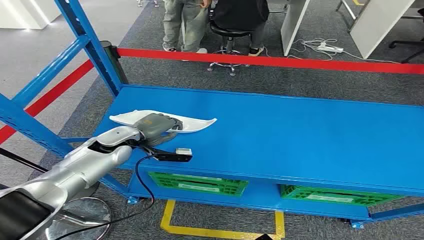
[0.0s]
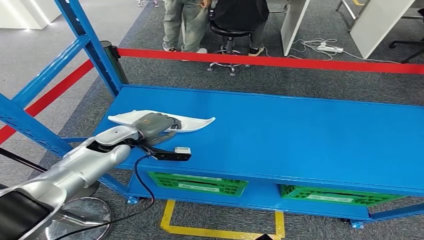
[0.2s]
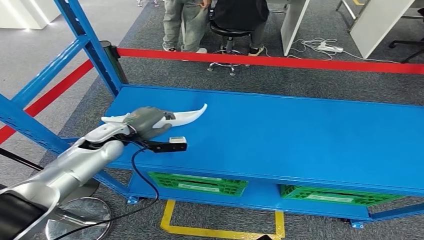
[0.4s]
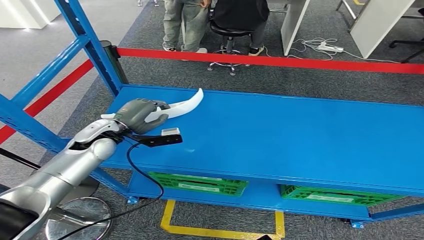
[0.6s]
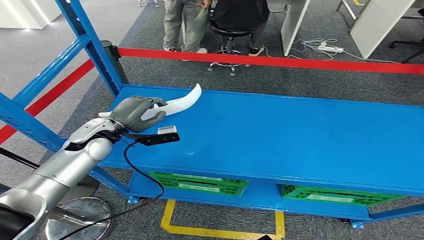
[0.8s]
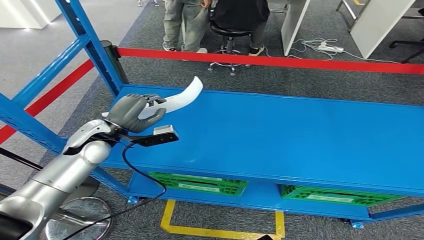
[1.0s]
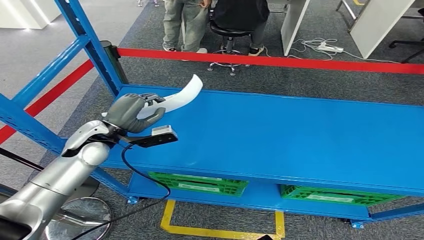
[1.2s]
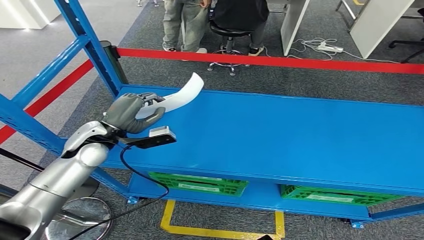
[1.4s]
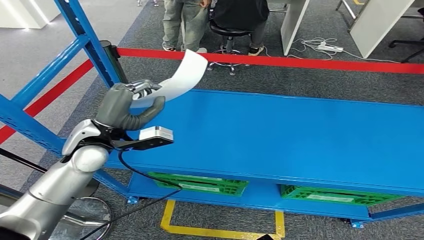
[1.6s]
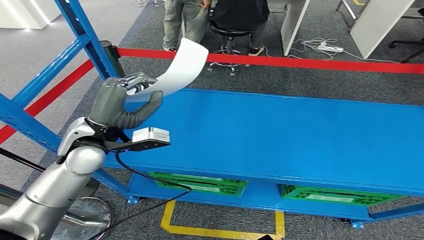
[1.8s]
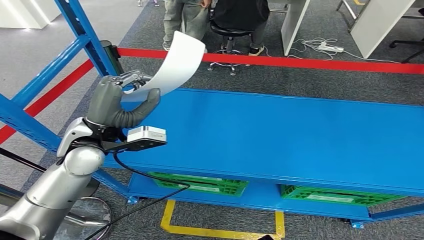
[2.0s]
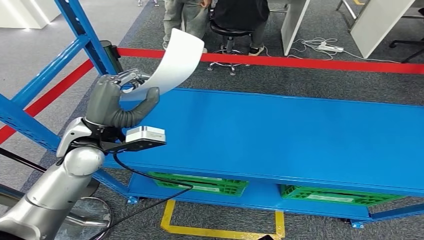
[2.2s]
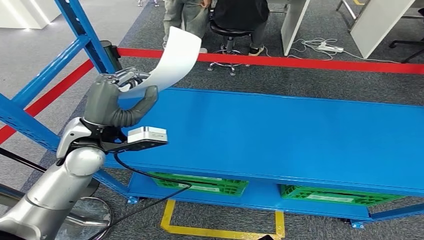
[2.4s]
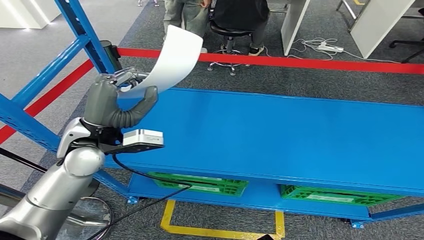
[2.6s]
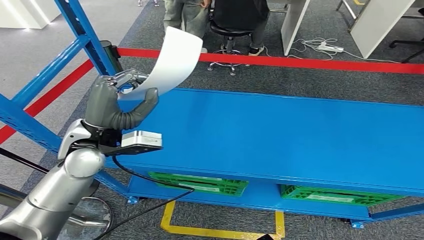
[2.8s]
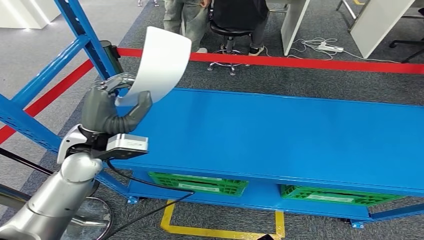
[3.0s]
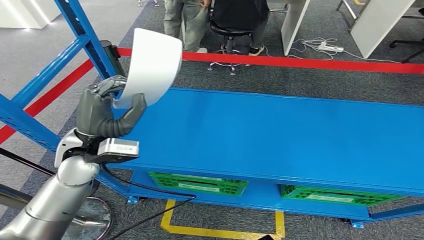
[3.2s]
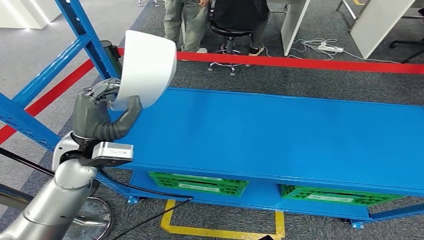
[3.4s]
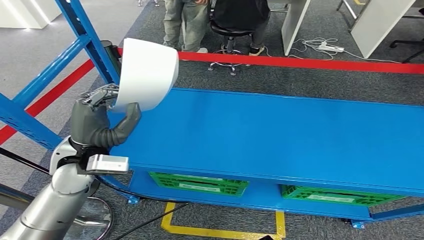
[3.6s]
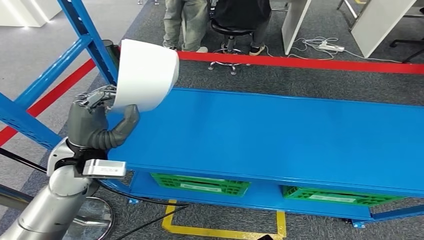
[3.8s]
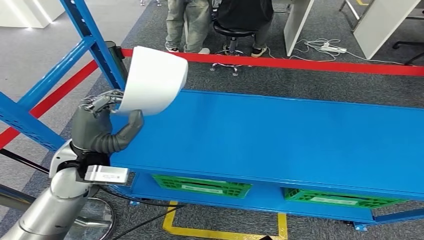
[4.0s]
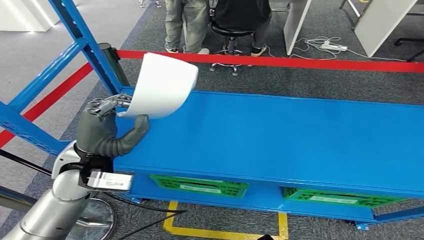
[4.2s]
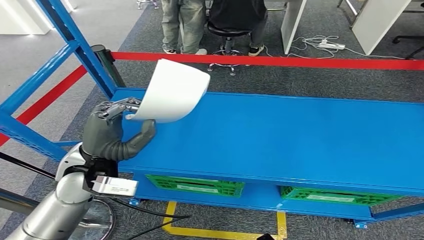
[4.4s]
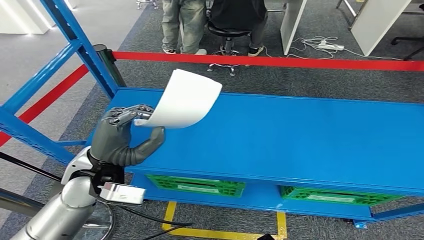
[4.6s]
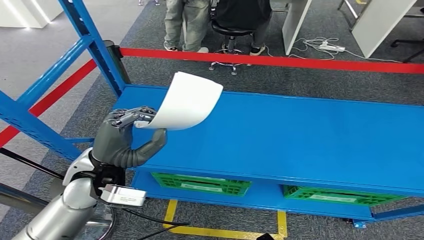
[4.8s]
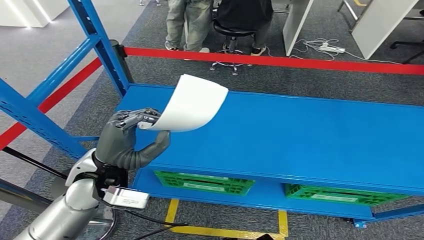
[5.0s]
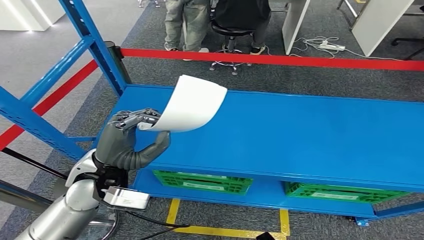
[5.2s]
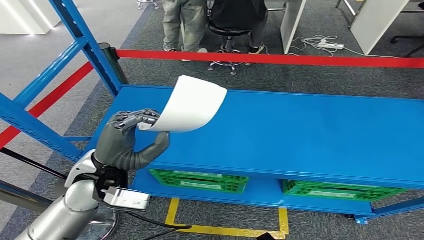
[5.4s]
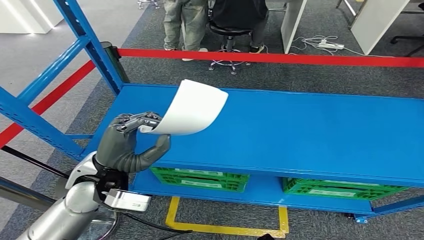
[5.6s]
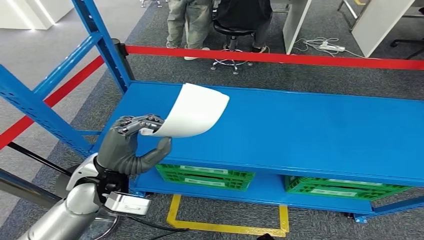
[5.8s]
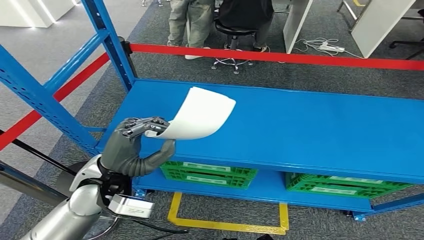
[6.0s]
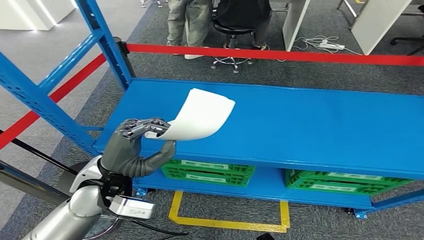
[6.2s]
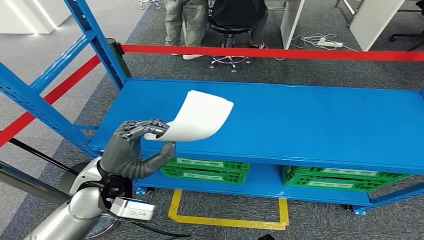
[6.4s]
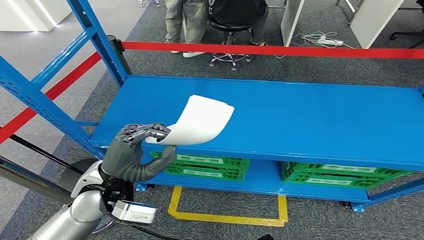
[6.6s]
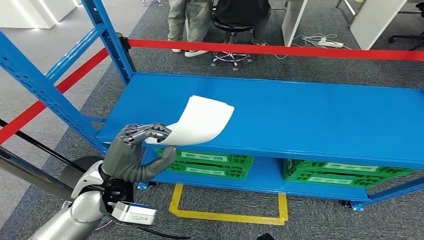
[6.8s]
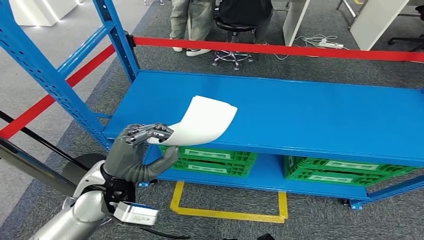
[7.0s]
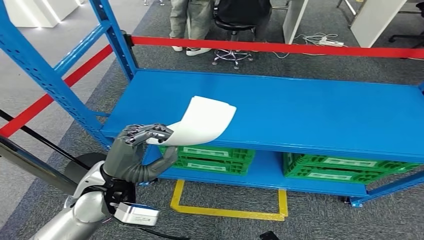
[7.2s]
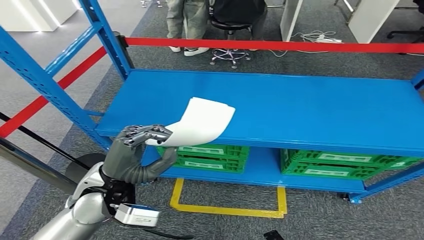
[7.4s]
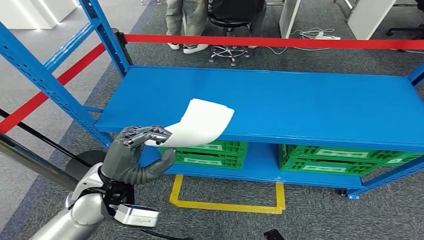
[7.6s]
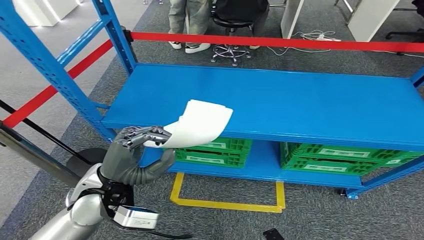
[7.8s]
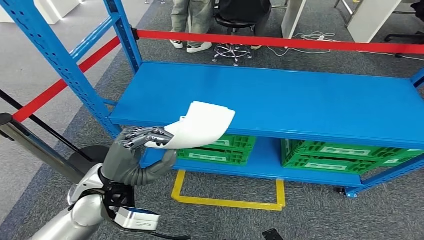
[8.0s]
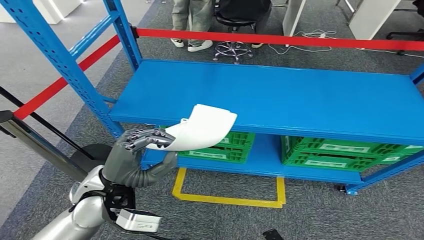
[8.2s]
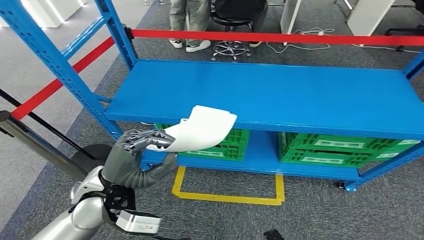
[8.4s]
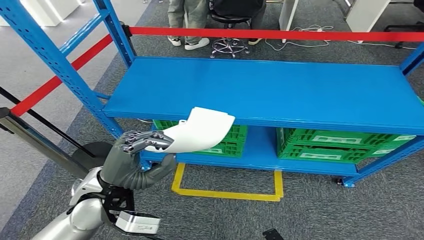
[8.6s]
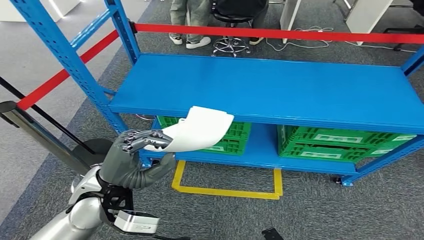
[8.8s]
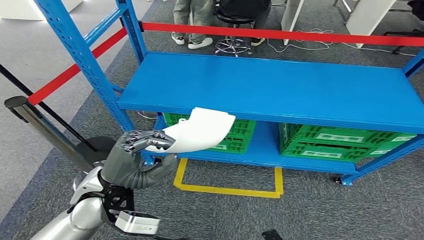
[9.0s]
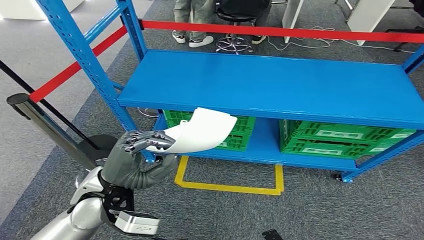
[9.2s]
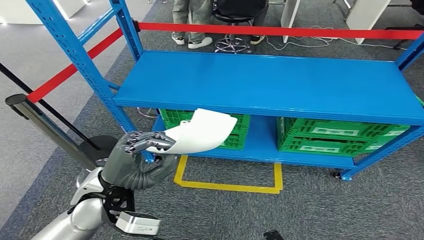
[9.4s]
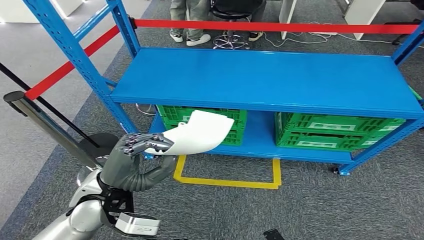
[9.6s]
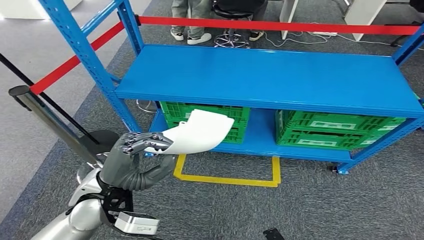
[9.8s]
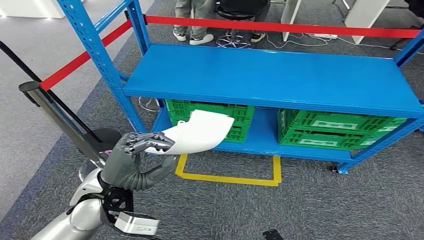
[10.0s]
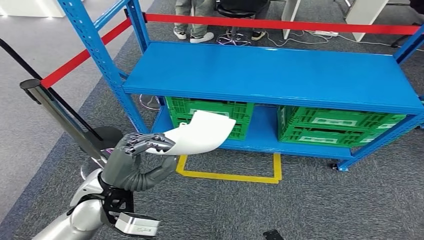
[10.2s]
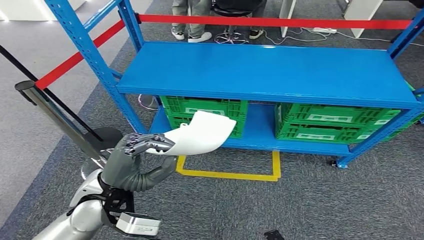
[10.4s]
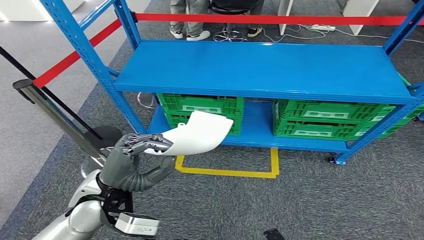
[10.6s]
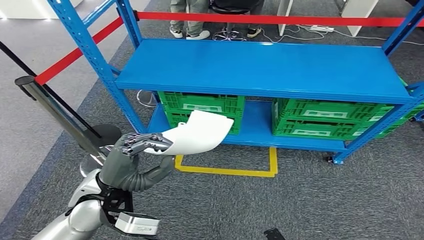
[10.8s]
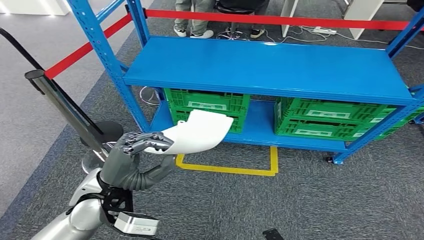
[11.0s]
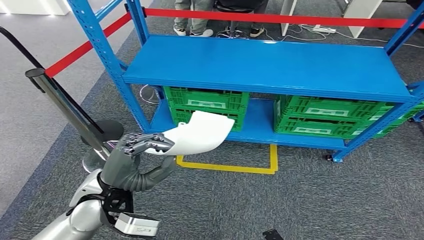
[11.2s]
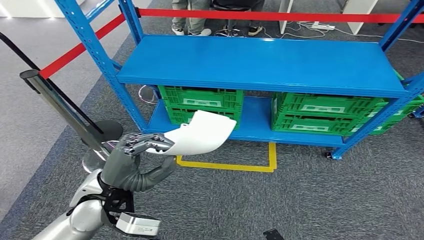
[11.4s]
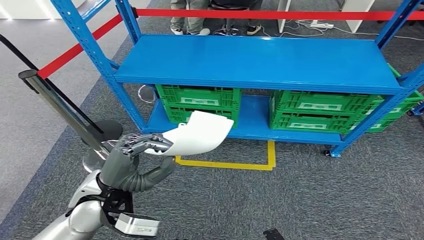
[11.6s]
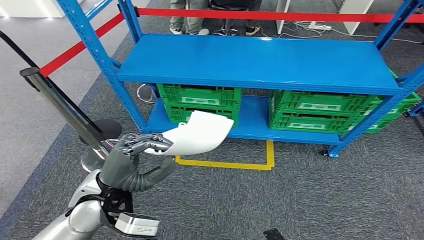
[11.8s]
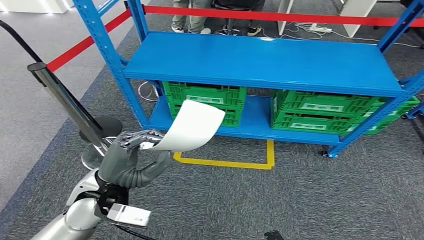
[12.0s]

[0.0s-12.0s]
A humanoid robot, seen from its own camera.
Step, 0.0s to 2.8s: Take small components from the rack.
1.6s to 3.0s: The hands stay close to where they were, moving slightly.

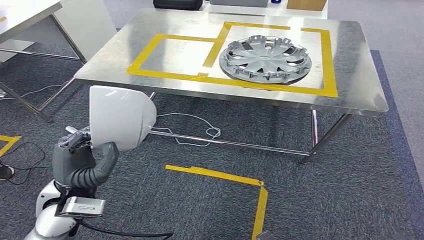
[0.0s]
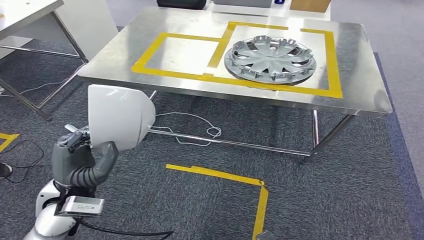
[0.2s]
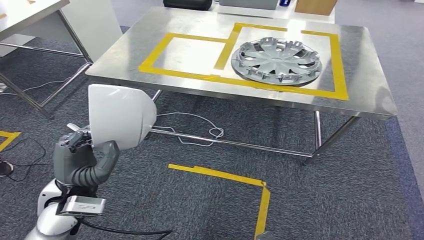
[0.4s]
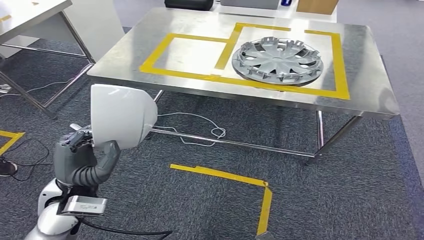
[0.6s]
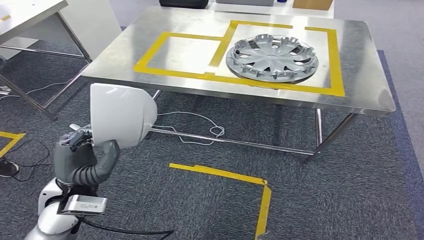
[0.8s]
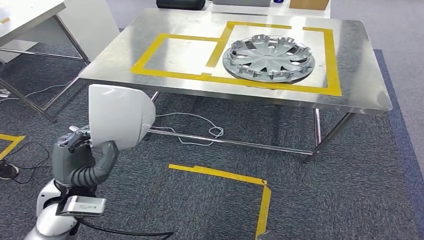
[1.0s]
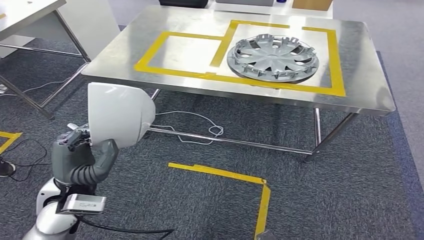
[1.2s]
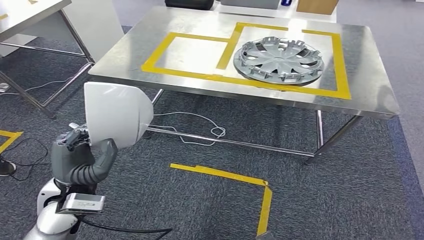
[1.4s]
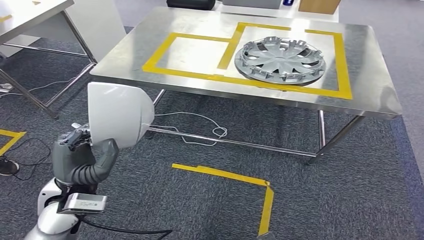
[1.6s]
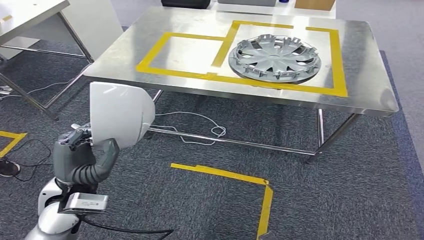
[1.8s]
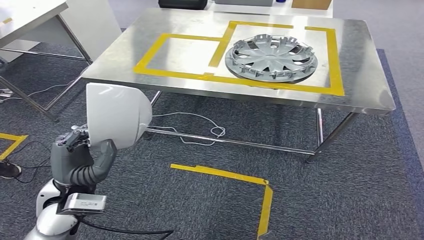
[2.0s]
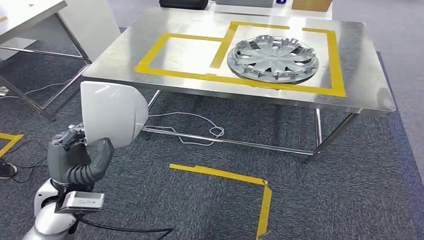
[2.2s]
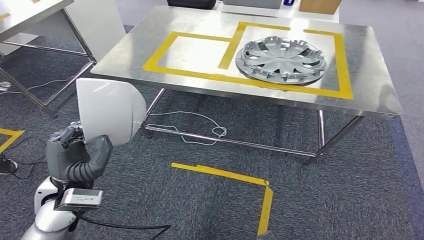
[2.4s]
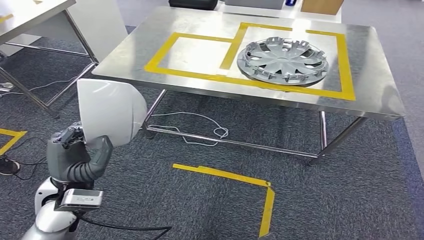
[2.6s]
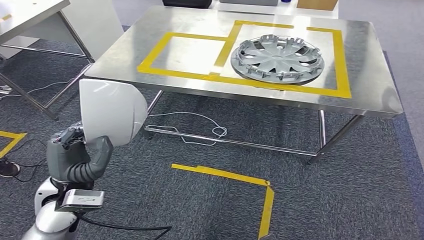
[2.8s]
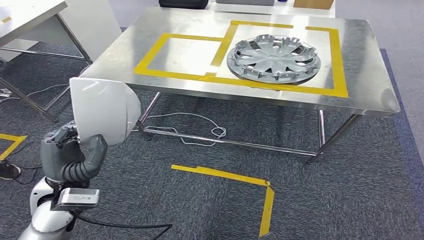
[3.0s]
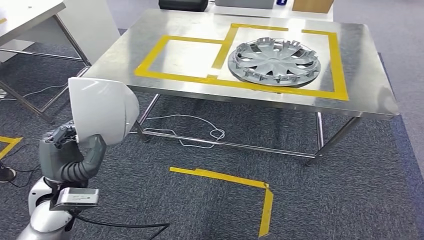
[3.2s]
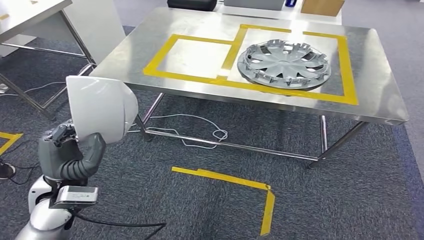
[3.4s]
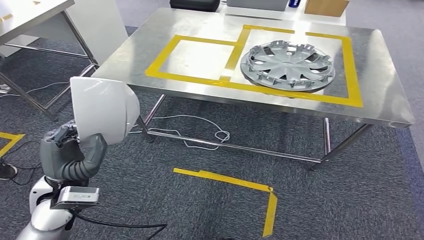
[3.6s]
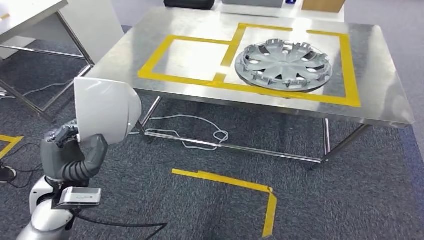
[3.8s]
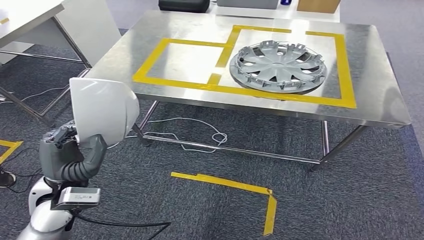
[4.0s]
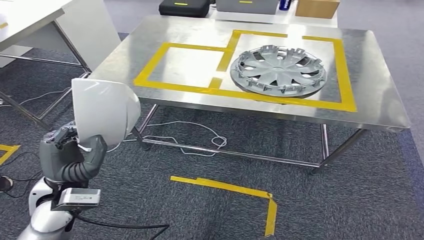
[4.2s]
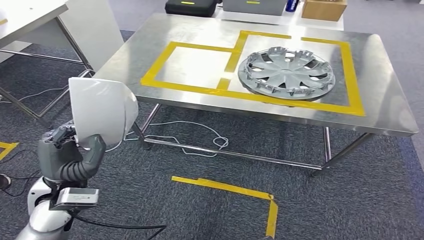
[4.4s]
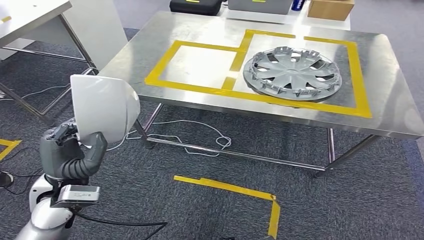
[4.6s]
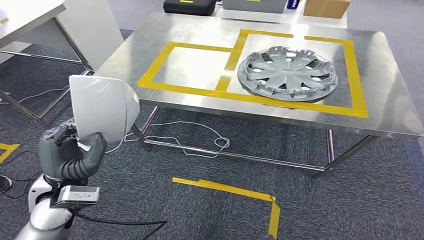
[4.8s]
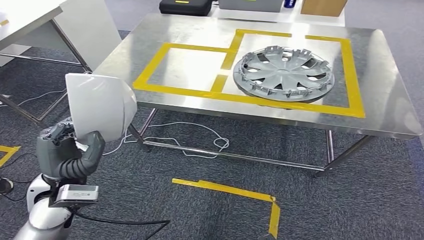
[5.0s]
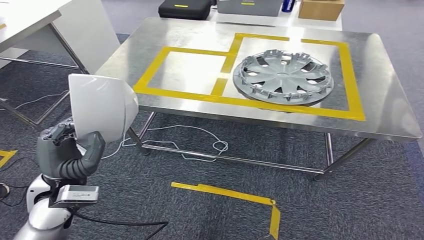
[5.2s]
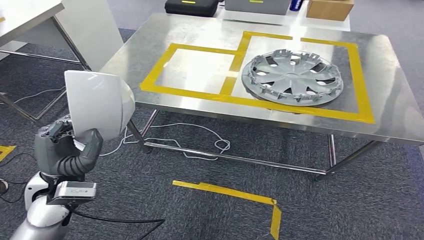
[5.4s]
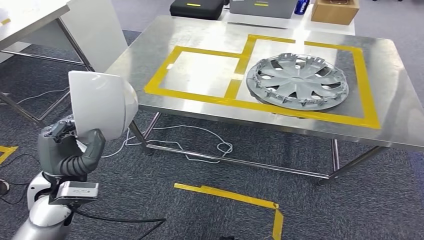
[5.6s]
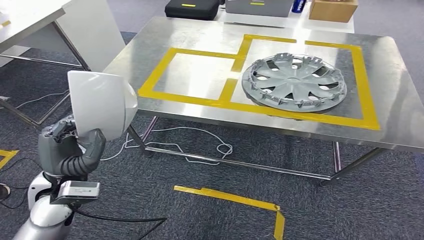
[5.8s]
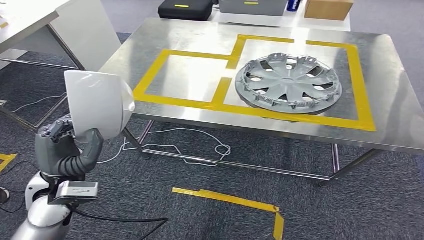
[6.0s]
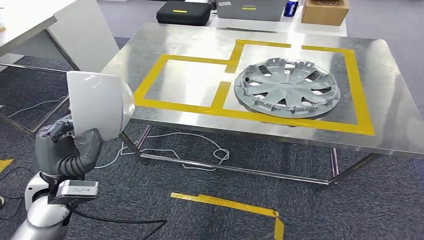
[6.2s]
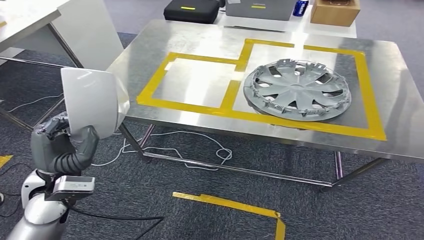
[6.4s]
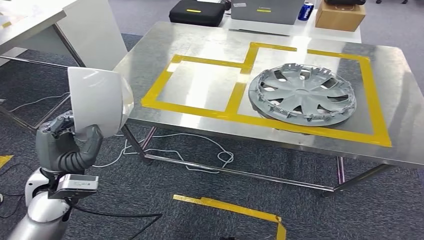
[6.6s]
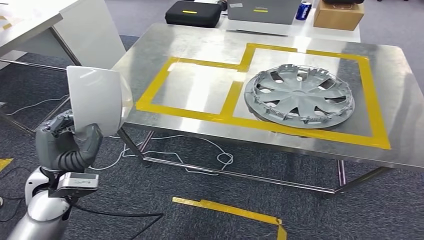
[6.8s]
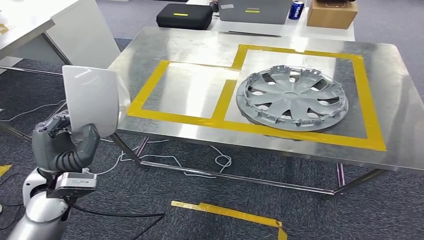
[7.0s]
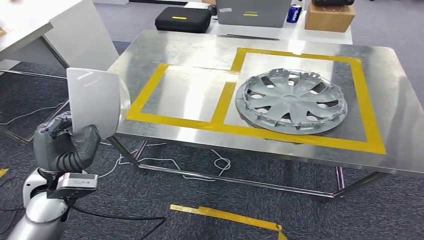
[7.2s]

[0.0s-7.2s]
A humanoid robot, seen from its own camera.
0.0s to 1.4s: Neither hand changes place.
1.4s to 2.8s: The two hands keep their place.
